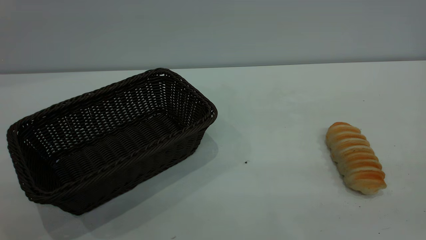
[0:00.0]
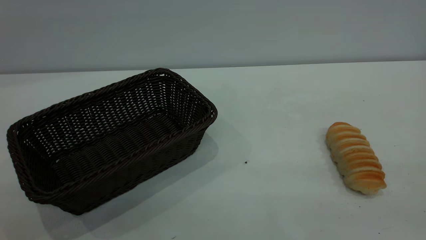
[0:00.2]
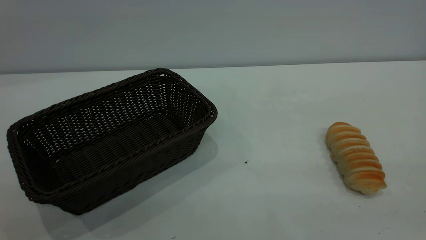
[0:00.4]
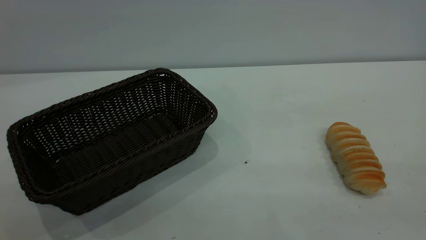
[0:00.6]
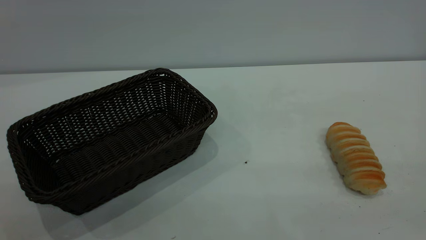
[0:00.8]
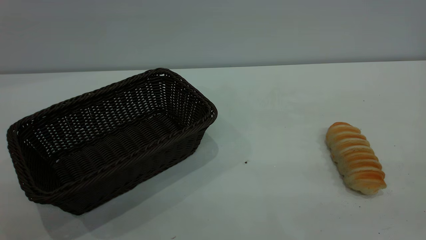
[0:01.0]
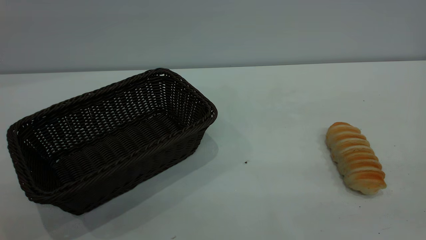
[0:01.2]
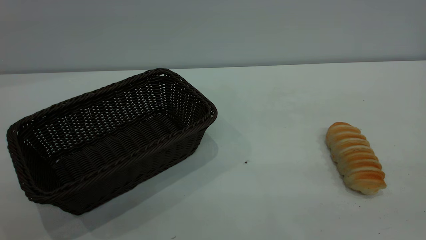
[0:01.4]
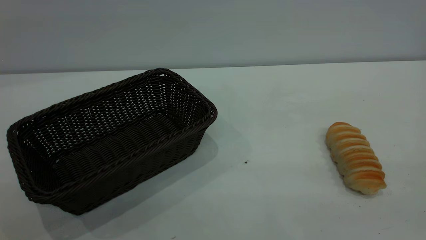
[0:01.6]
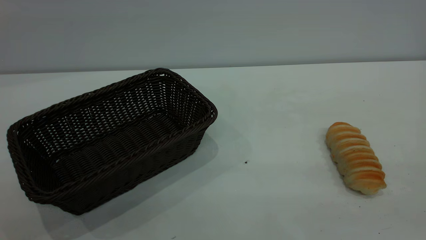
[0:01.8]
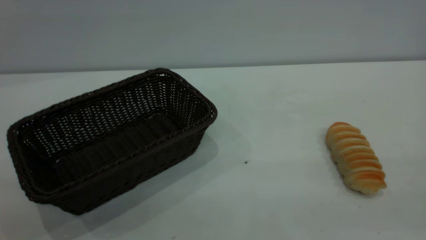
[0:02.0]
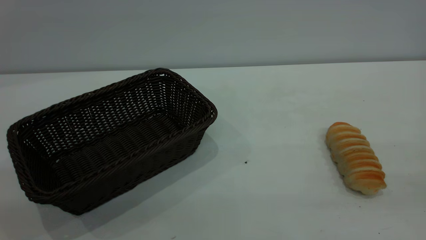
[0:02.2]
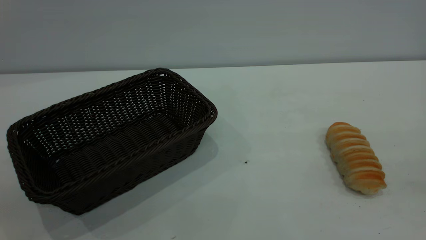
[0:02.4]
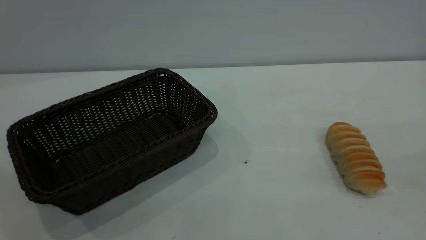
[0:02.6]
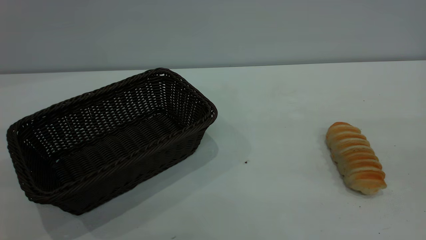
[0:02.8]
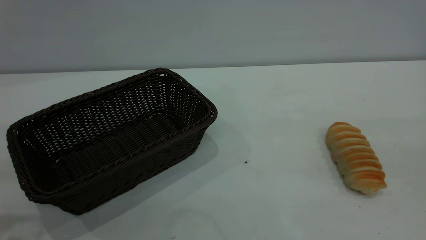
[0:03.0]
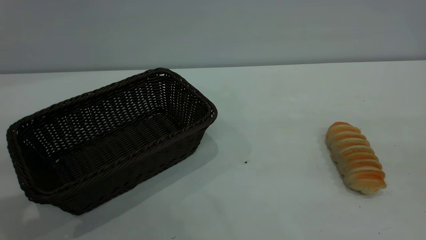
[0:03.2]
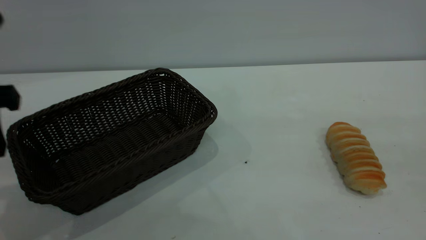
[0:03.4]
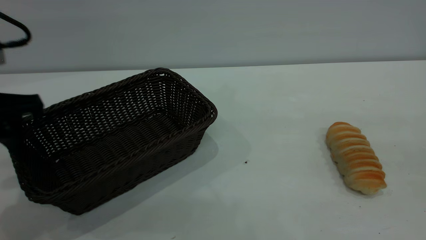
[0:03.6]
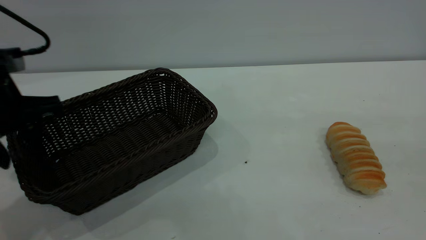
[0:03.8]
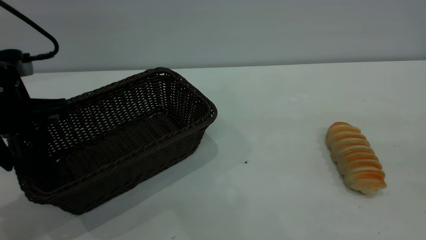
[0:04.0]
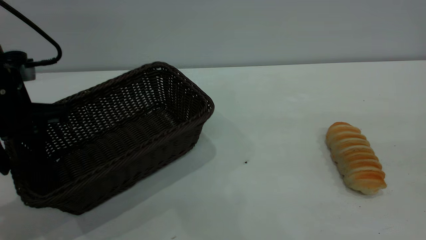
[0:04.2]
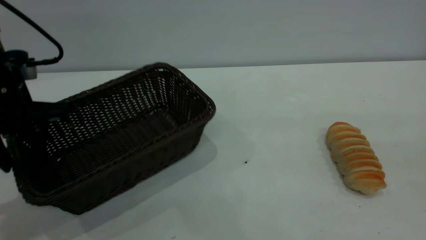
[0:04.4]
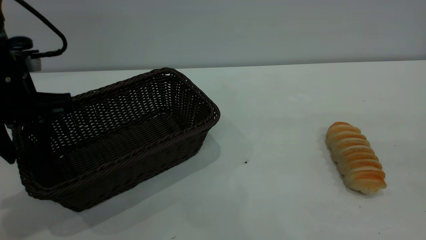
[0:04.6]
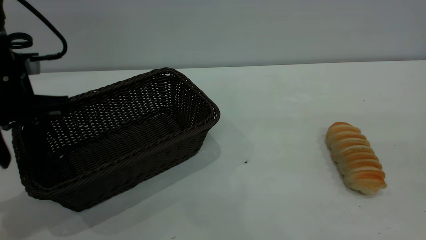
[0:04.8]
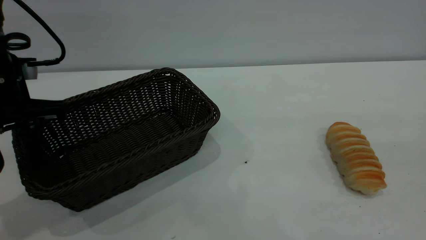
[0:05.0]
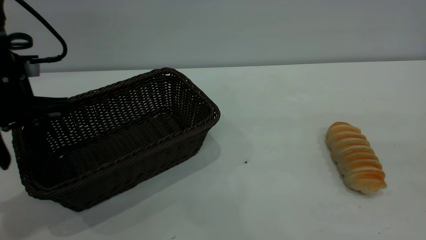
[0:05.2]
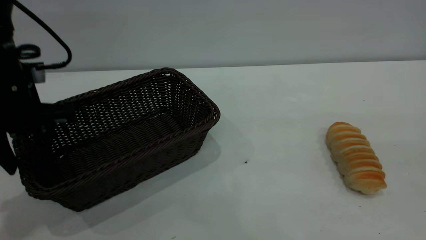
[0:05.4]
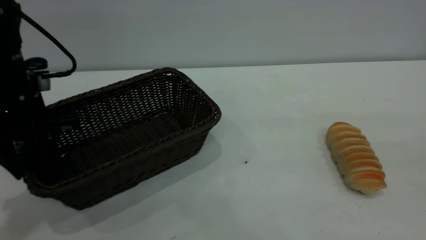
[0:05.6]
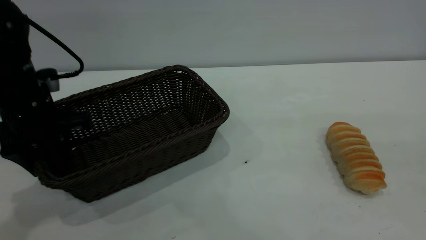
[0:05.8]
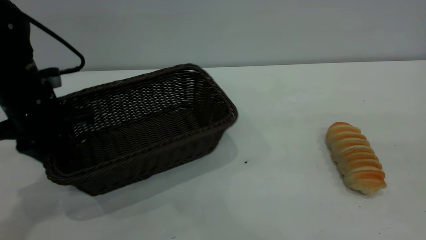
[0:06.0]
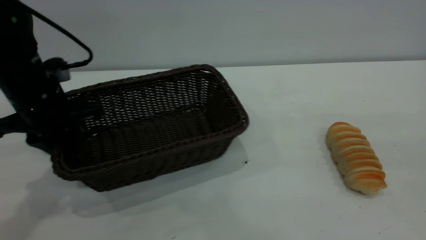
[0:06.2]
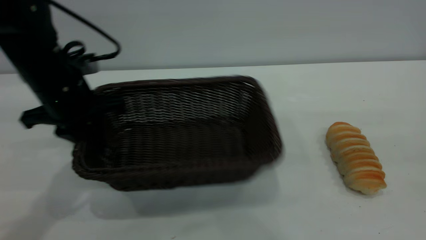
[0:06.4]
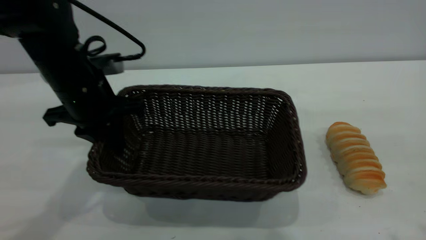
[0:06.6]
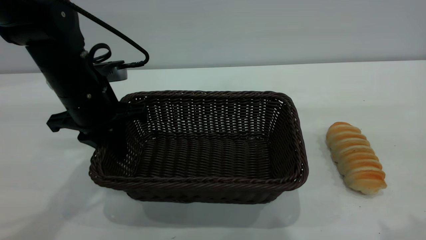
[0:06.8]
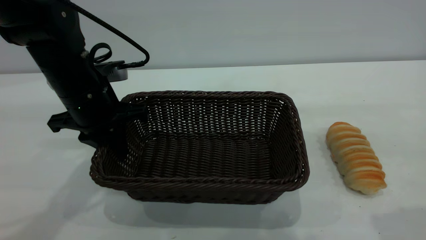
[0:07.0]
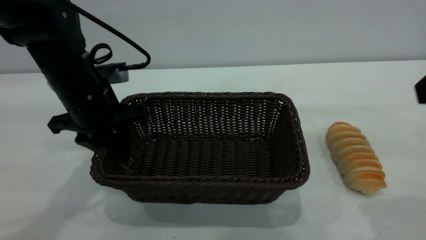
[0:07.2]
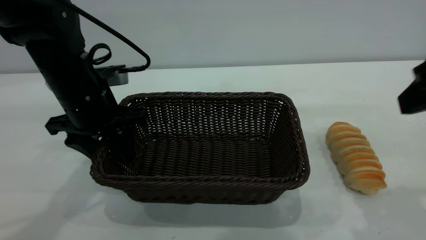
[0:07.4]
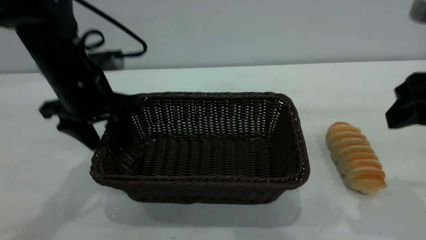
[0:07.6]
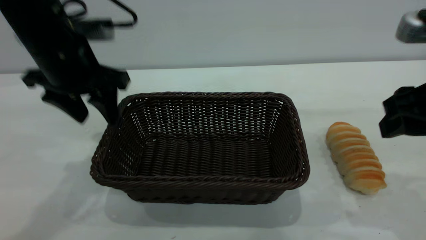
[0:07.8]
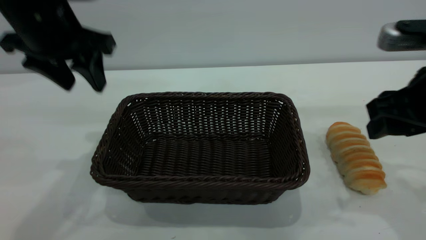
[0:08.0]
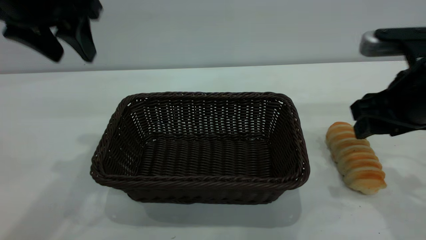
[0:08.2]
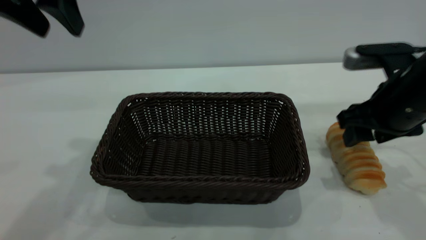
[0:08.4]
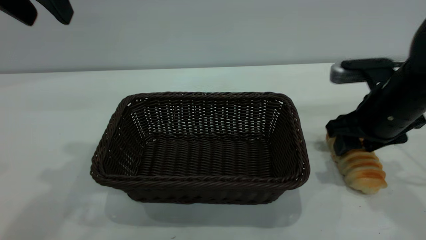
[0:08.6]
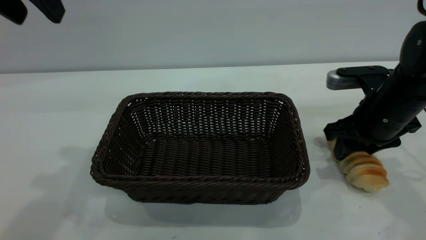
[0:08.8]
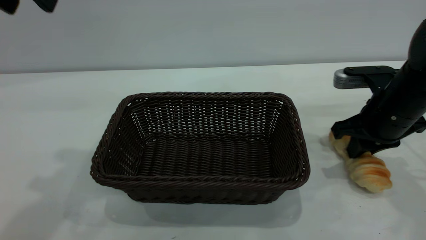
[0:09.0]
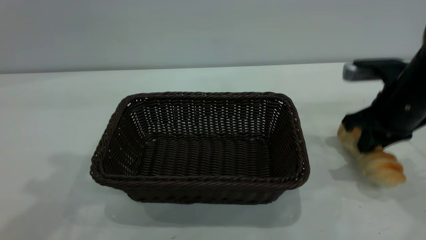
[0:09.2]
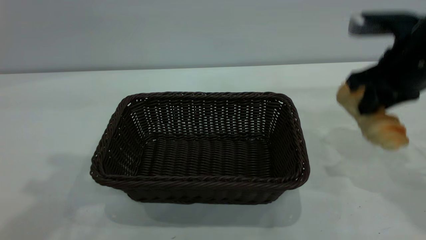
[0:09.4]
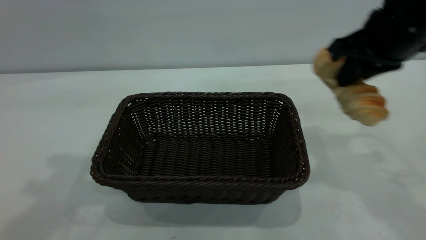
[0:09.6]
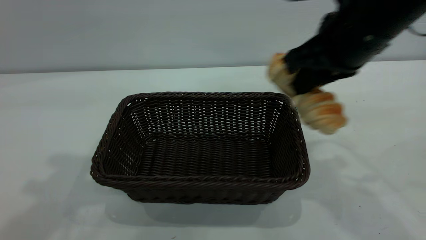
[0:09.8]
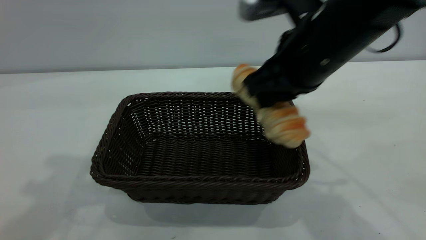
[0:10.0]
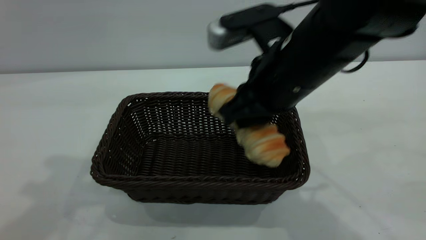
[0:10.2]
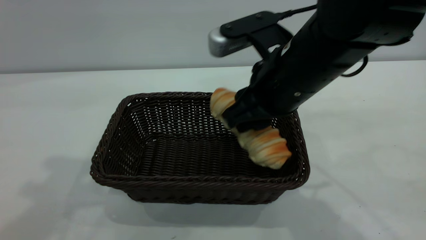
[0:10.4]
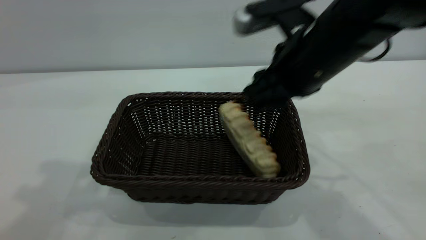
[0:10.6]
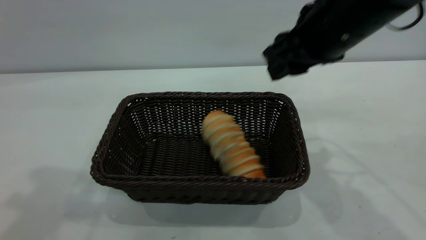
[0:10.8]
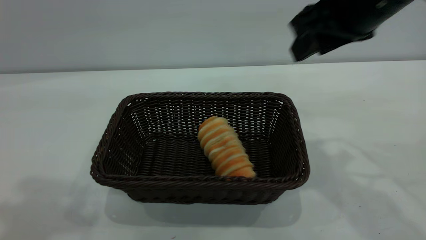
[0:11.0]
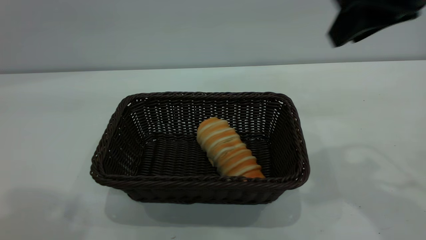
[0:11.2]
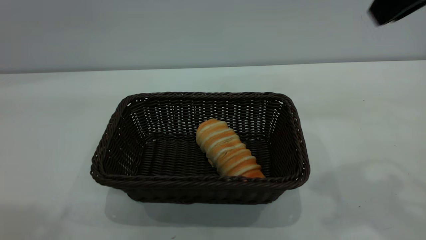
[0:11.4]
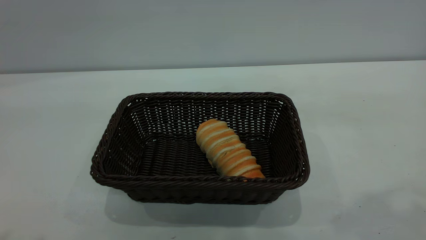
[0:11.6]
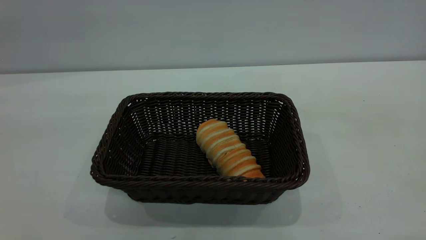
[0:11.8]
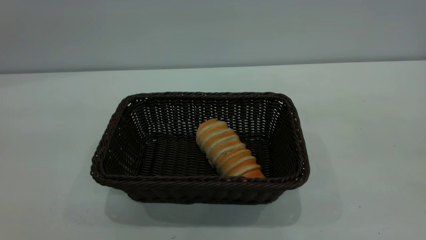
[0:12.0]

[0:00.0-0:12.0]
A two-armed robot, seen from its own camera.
Task of the whole recording: One hand grasps the black basket and places it in the middle of the table, while the other hand picks up the long bread and puts it into the black basket.
Step, 0:00.0 to 0:08.0: Move the basket to the center of view.
Step, 0:09.4 to 0:11.0: place the bread into the basket.
0:03.0 to 0:04.4: The left gripper moves forward and downward, some 15 cm.
0:04.4 to 0:06.0: The left gripper closes up.
0:06.0 to 0:07.6: The right gripper goes approximately 15 cm forward and downward. Meanwhile the left gripper heads to the right, covering about 5 cm, and opens up.
0:07.6 to 0:09.0: The left gripper travels upward by about 20 cm. Meanwhile the right gripper heads downward and forward, covering roughly 15 cm, and closes up.
0:09.0 to 0:10.4: The right gripper goes roughly 20 cm to the left and upward, and opens up.
0:10.4 to 0:12.0: The left gripper is displaced backward and upward by approximately 25 cm. The right gripper is displaced upward, backward and to the right by about 40 cm.

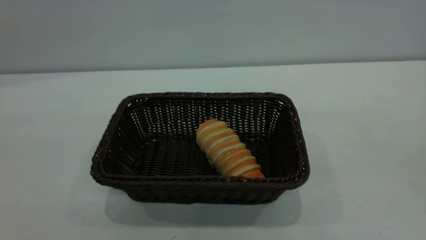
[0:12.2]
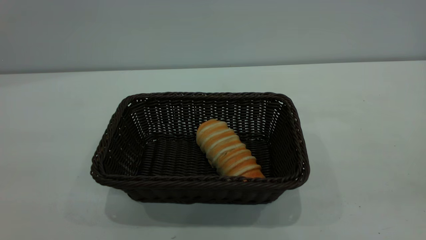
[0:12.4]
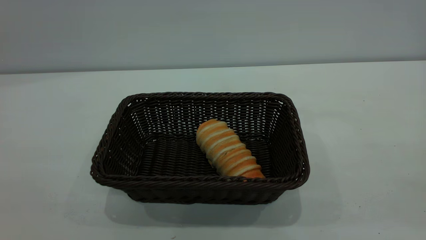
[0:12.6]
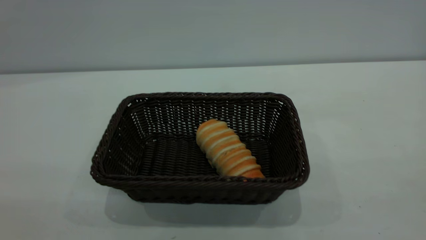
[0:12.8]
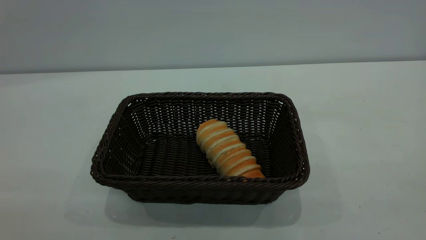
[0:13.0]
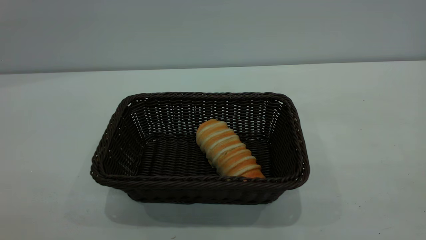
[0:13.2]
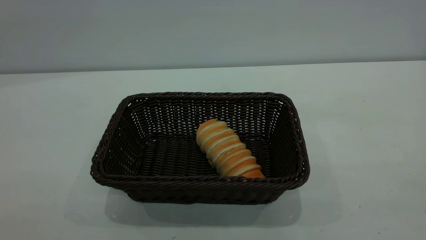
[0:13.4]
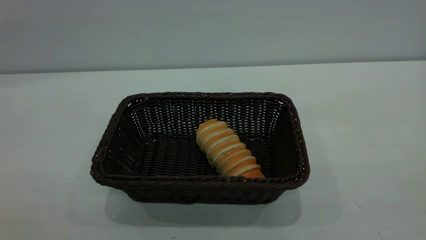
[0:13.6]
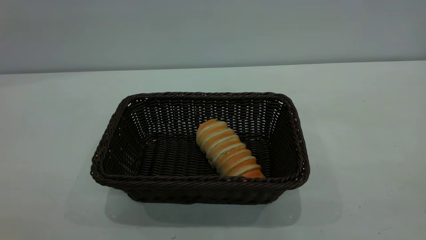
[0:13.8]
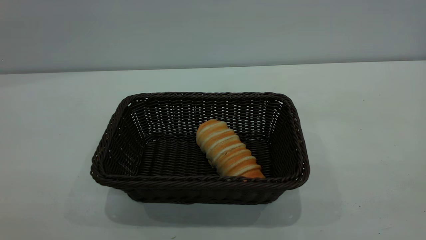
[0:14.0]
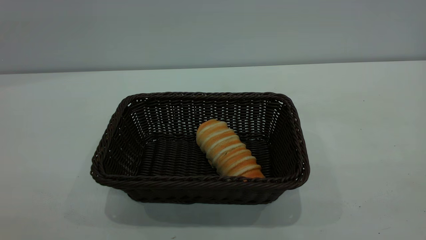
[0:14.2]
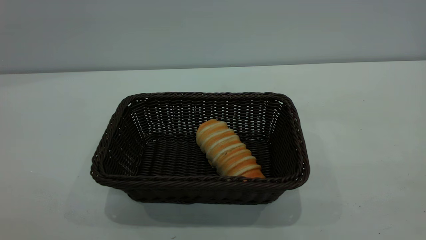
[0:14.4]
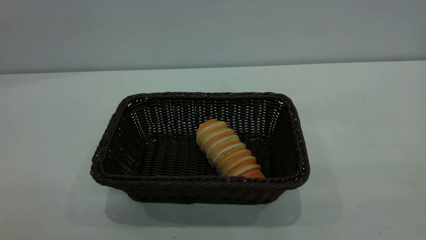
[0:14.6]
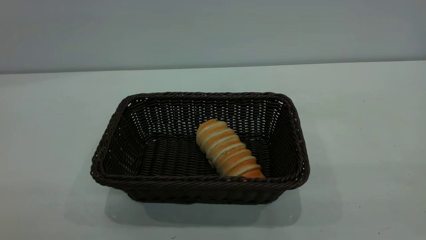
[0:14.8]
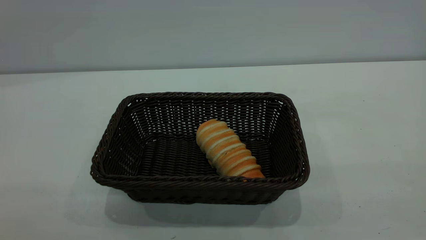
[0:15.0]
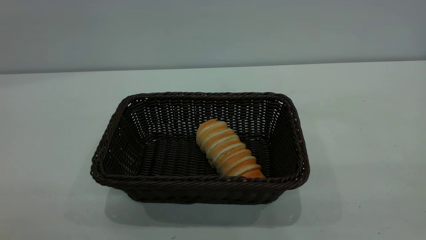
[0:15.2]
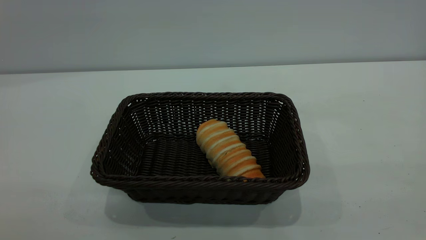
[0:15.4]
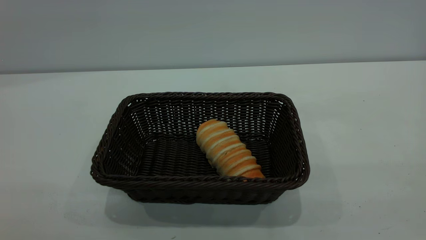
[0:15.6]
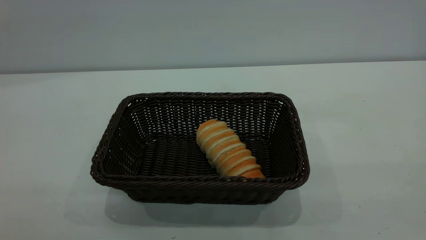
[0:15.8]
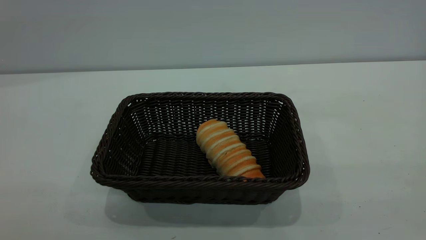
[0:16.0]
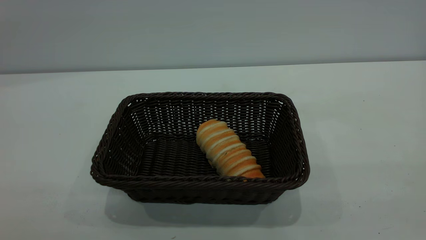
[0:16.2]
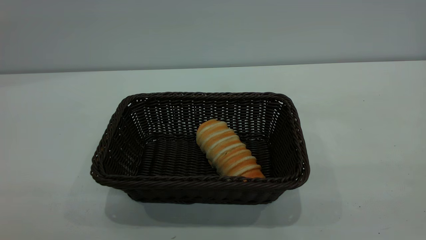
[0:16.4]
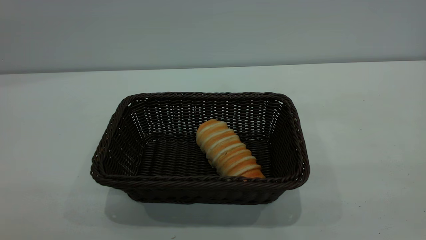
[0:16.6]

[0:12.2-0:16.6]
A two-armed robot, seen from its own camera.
Task of the whole recording: One hand grasps the black basket and places it in the middle of the table, while the other hand picks up the long bread and puts it into the black basket.
0:15.2 to 0:16.6: Both grippers stay about where they are.
